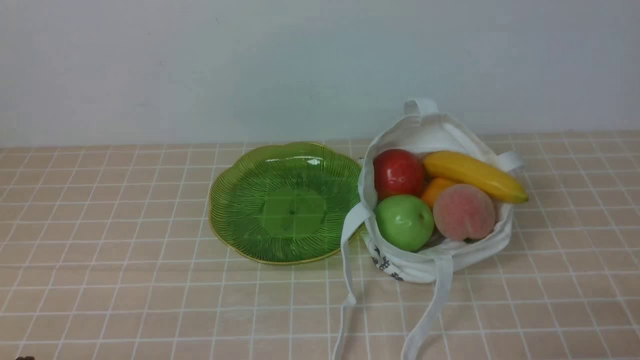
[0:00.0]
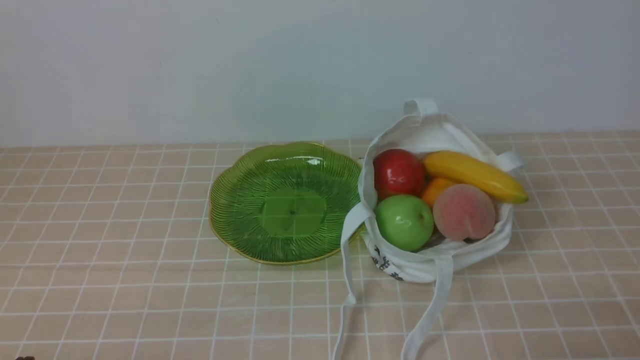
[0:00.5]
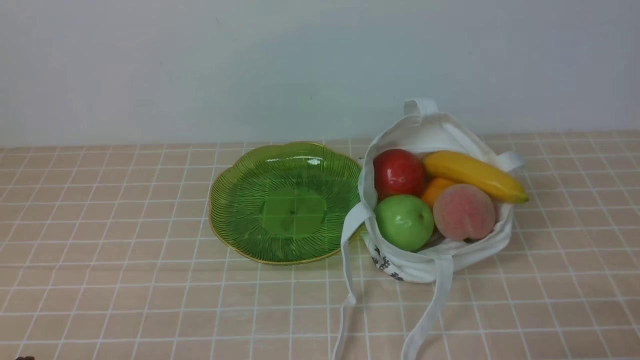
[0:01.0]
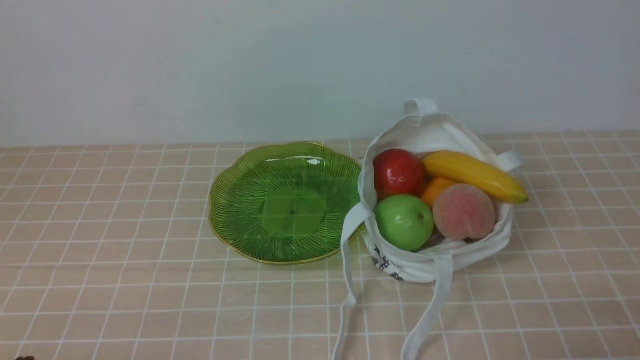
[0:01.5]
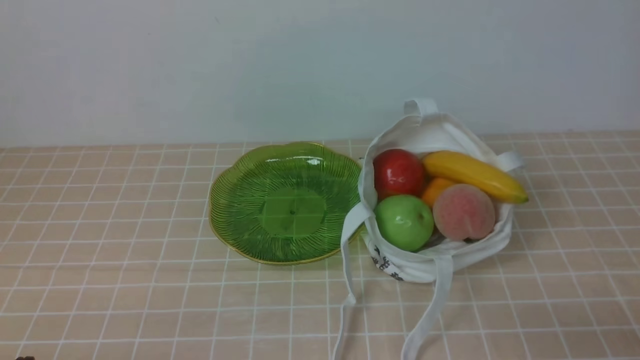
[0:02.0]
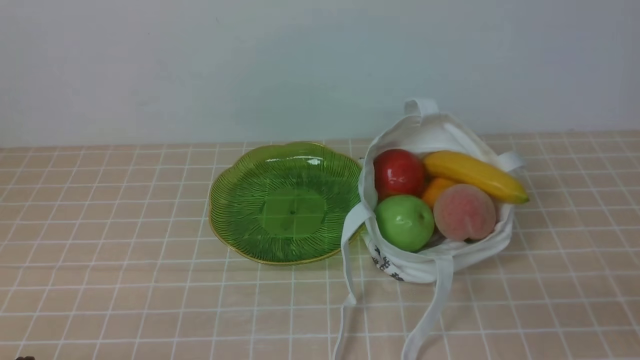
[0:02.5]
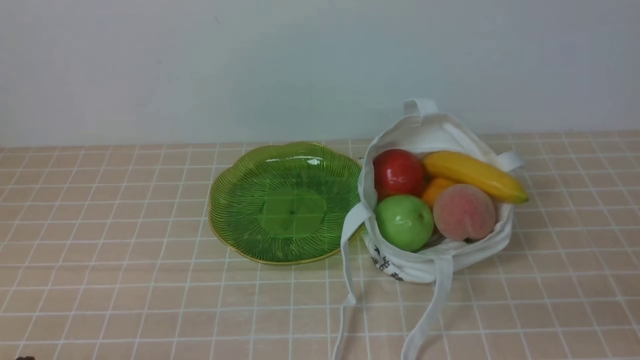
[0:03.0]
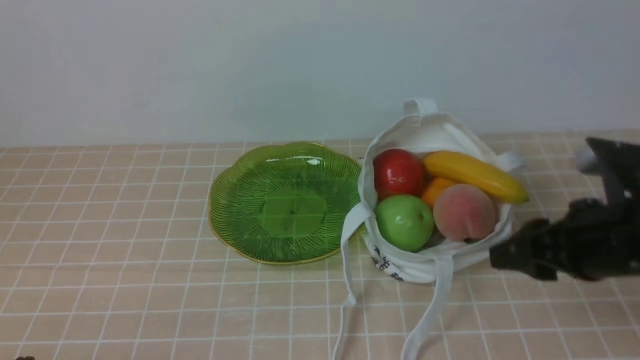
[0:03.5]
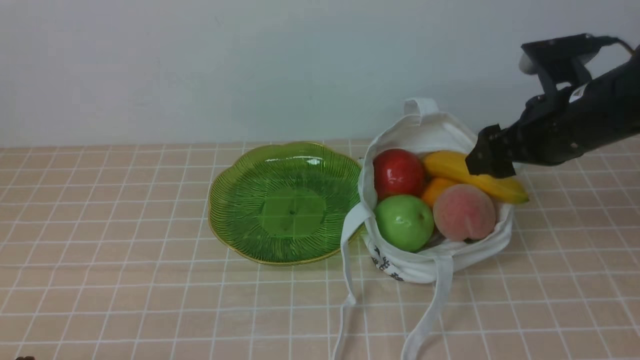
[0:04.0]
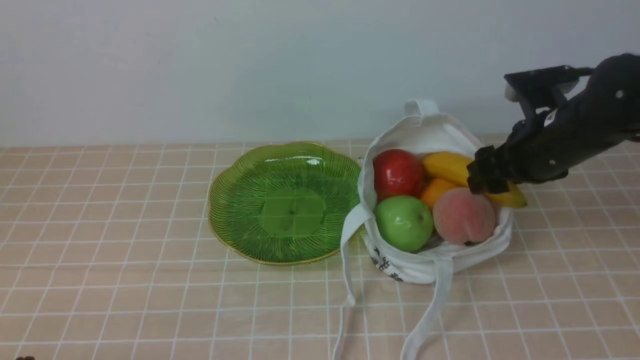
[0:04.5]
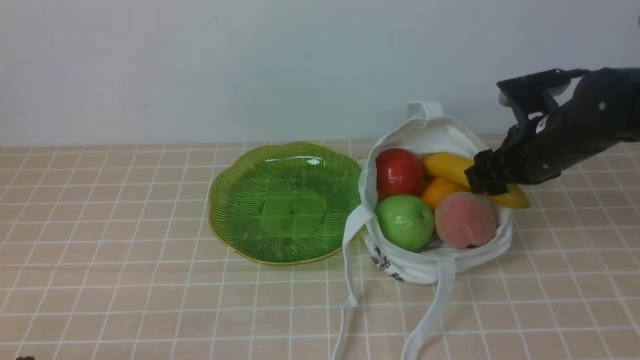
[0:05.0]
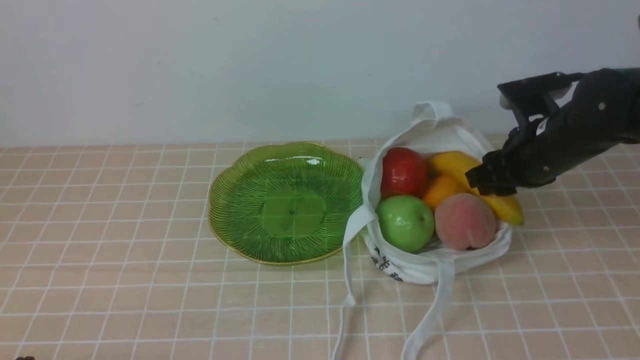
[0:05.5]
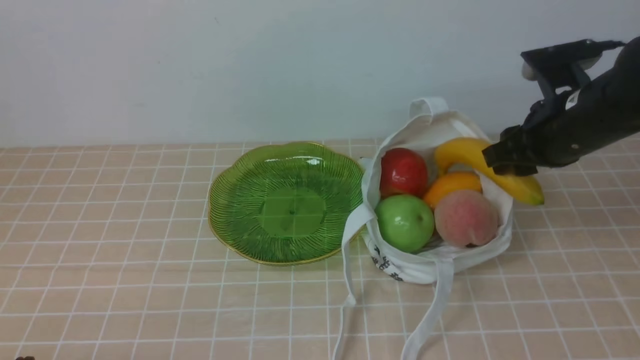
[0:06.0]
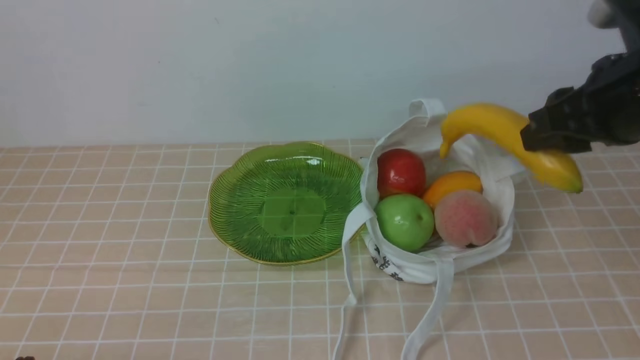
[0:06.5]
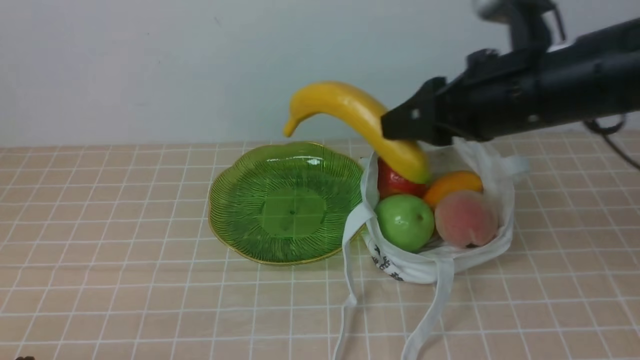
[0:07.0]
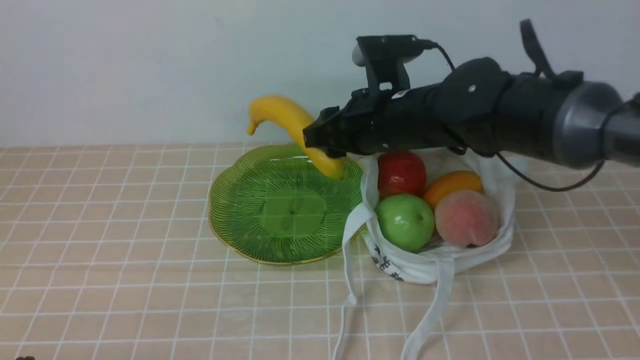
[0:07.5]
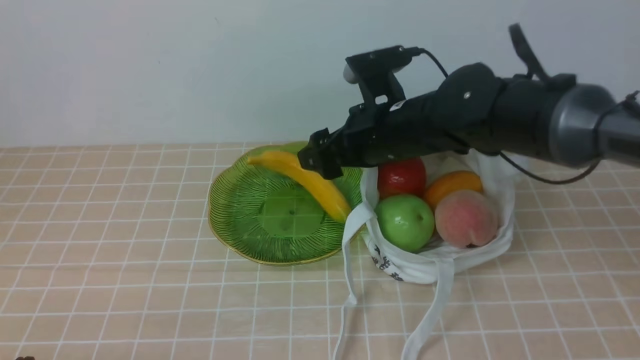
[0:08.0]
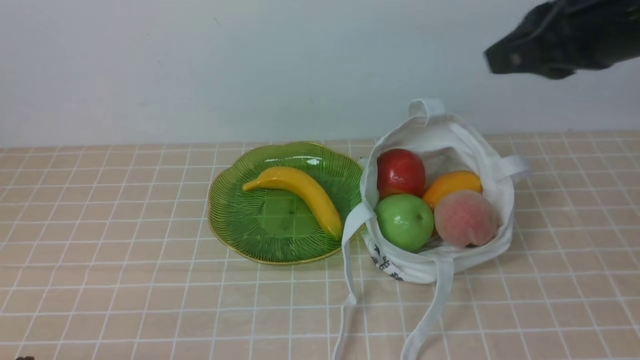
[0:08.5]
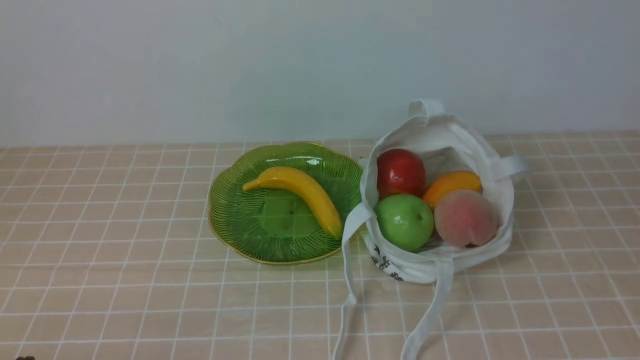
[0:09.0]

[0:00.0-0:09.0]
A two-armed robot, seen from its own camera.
Step, 0.0 to 6.0 s: use the right arm to grab a banana from the bag.
Step, 6.5 to 7.5 s: use the right arm to put the banana into the empty plate on the right.
2.0 to 4.5 s: The right gripper goes about 30 cm forward, and opens.
4.5 to 7.0 s: The right gripper goes some 15 cm upward, to the left and backward, and closes.
7.0 to 9.0 s: The right gripper heads backward, to the right and upward, covering roughly 25 cm, and closes.

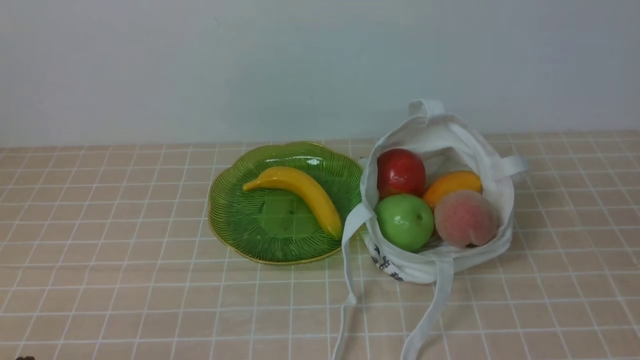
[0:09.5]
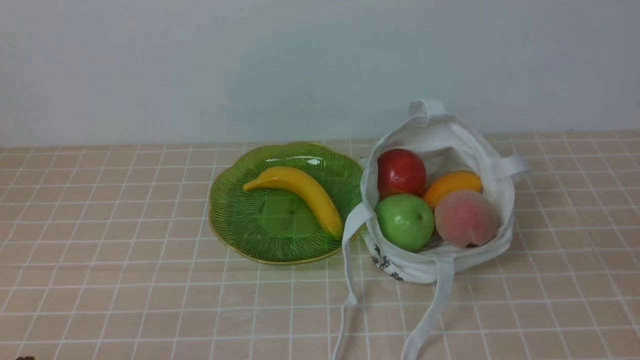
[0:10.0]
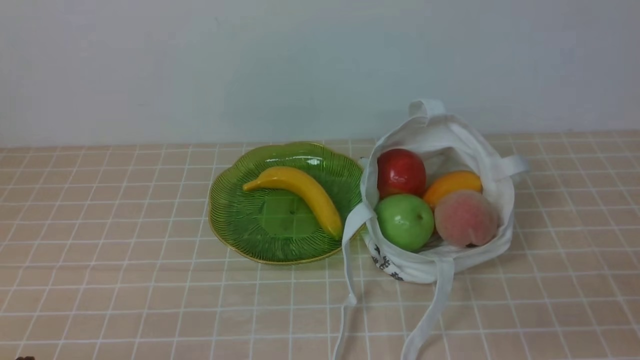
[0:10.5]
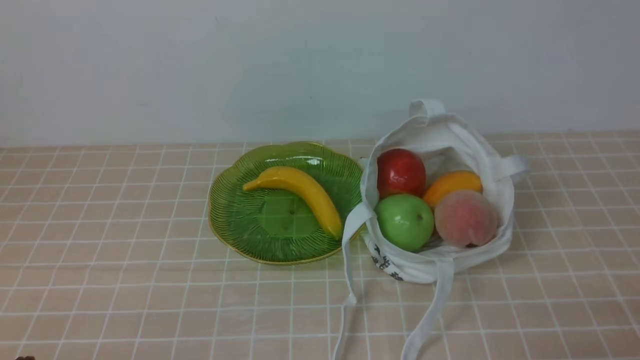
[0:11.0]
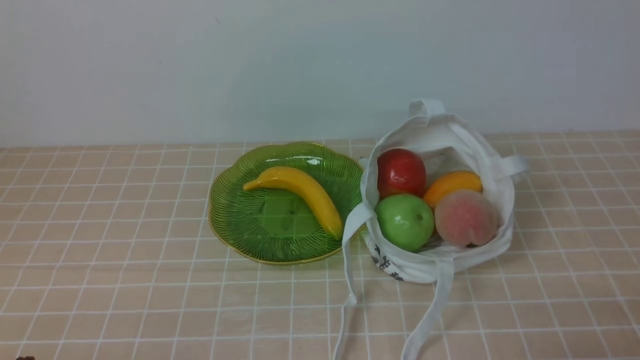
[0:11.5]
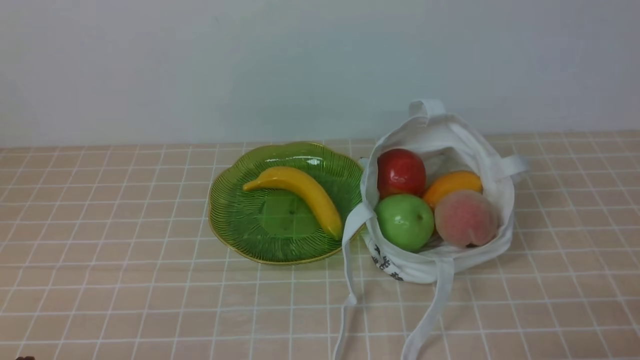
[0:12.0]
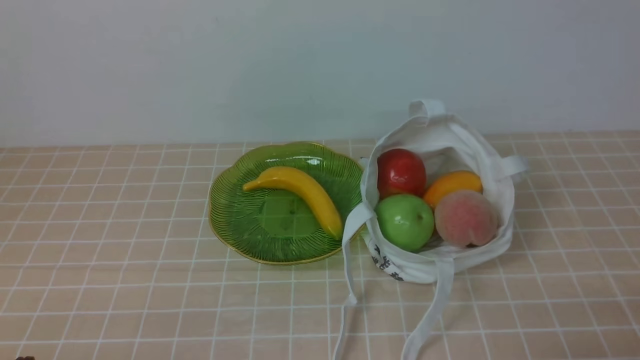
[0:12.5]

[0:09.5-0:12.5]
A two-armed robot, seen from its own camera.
11.0 to 12.5 s: The two grippers keep their place.

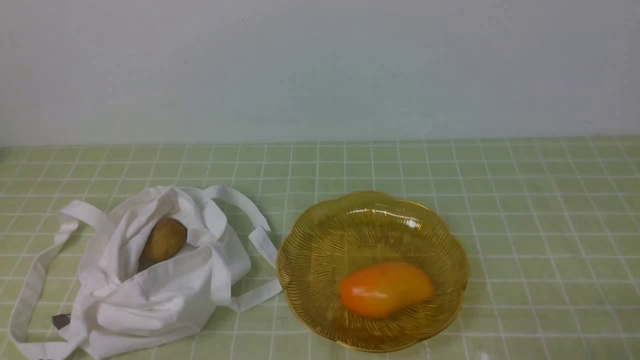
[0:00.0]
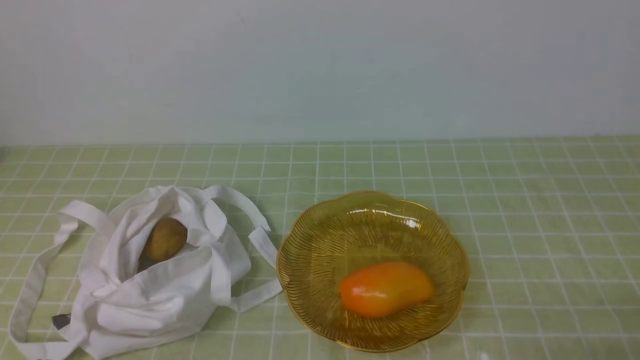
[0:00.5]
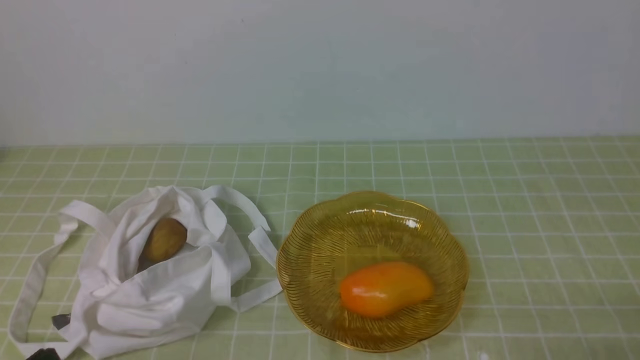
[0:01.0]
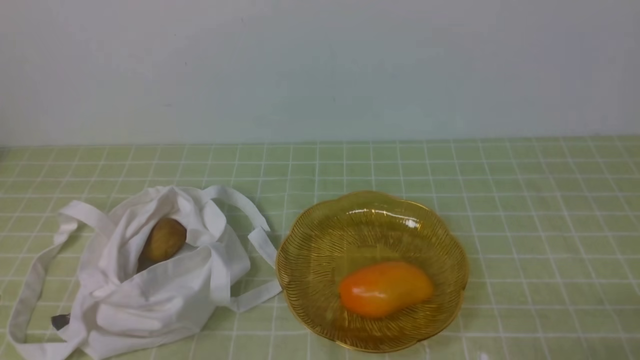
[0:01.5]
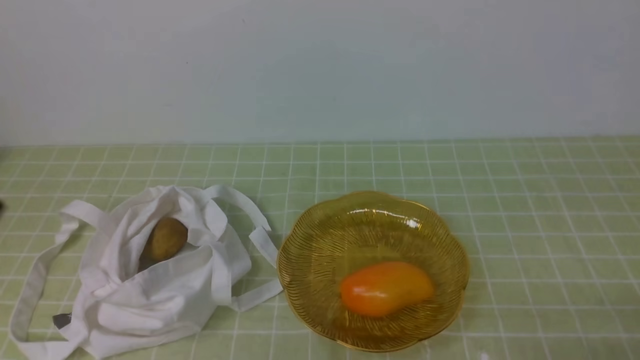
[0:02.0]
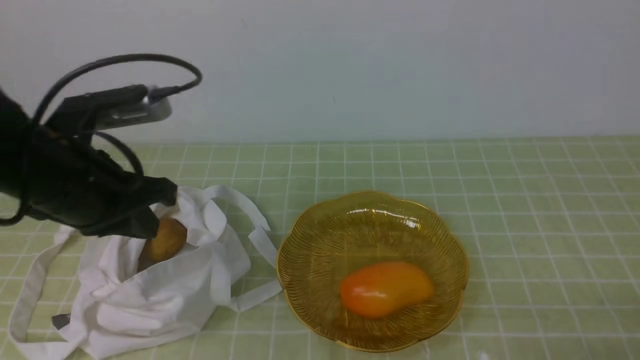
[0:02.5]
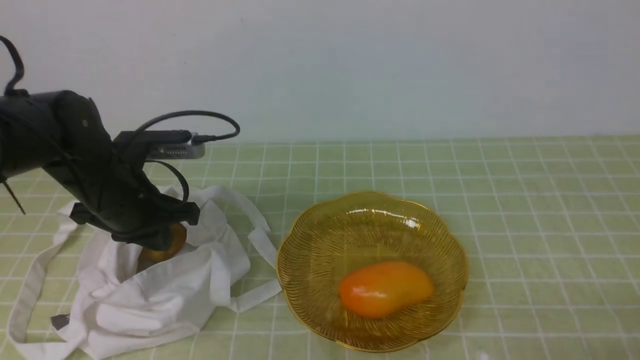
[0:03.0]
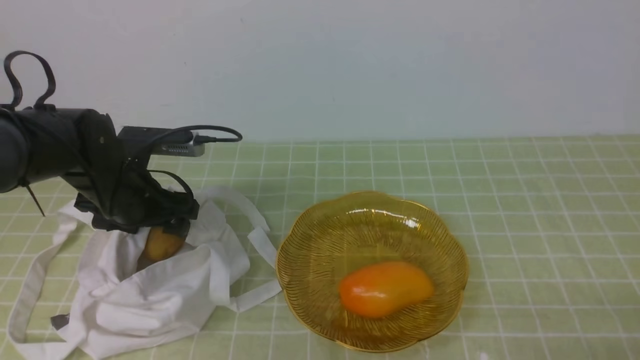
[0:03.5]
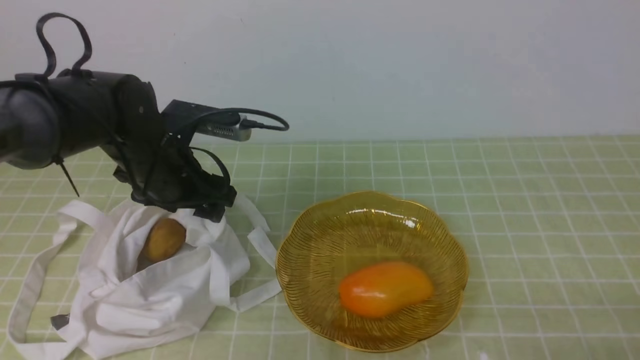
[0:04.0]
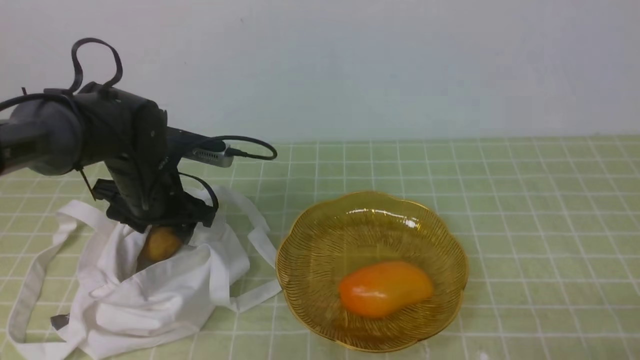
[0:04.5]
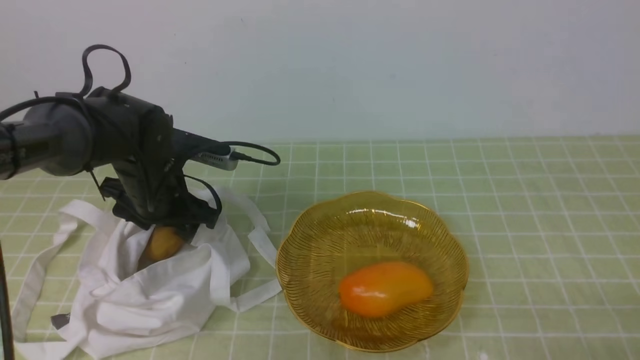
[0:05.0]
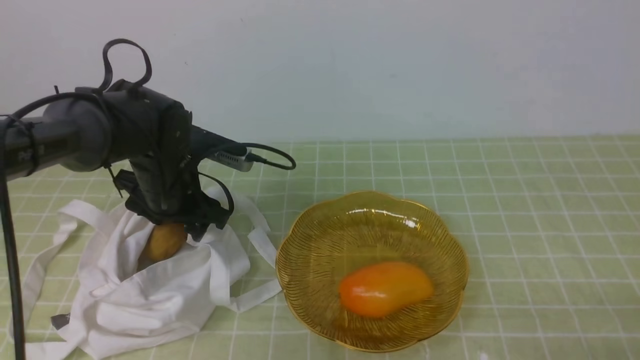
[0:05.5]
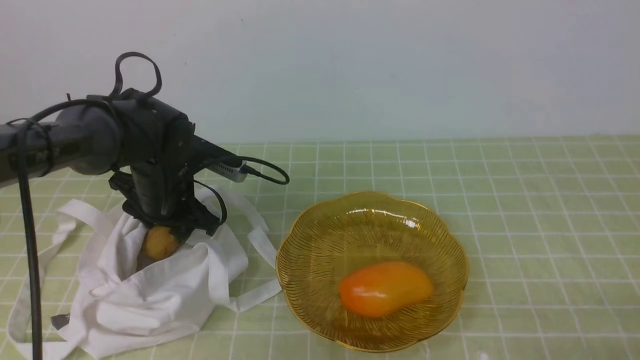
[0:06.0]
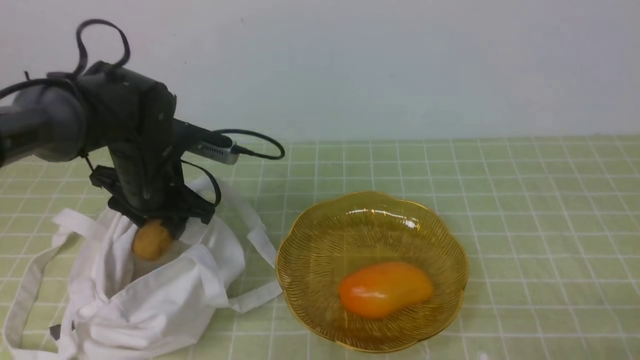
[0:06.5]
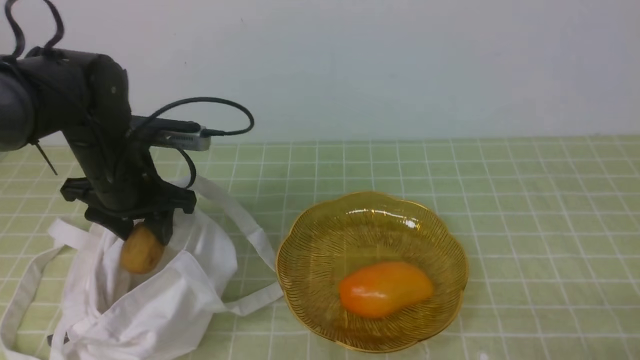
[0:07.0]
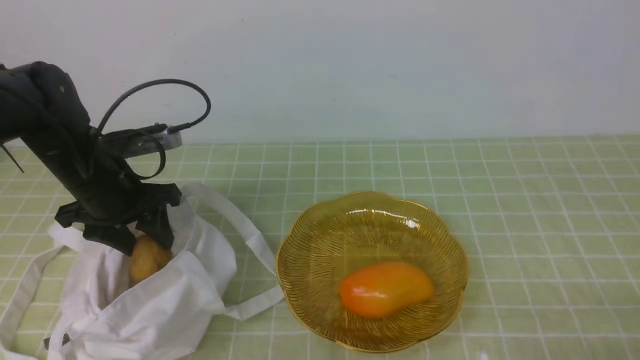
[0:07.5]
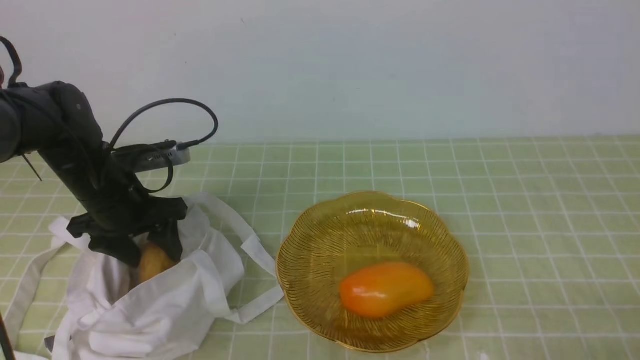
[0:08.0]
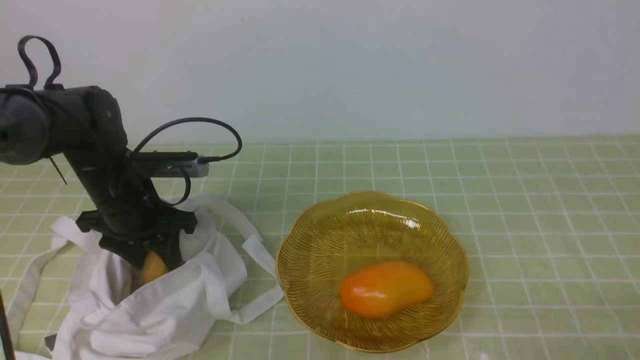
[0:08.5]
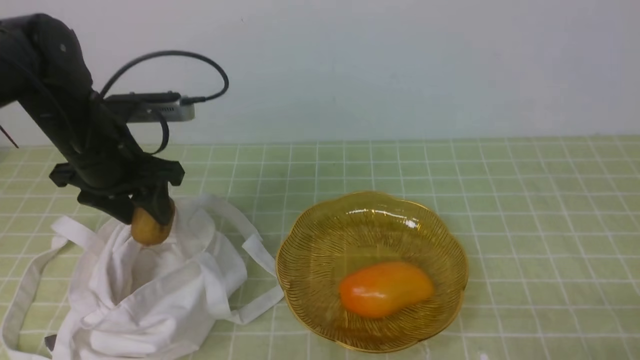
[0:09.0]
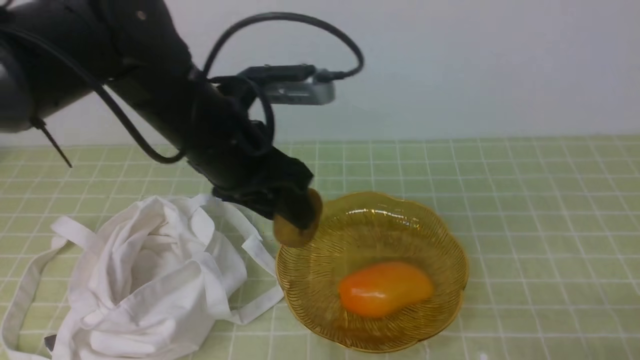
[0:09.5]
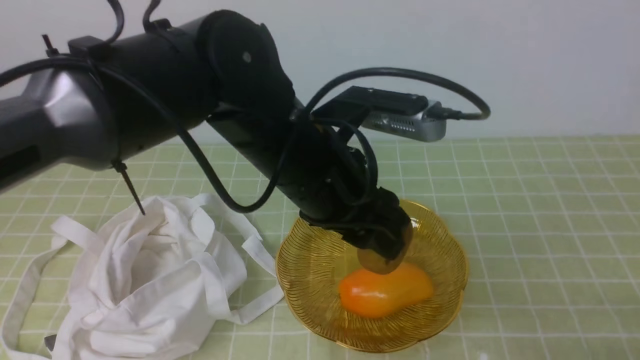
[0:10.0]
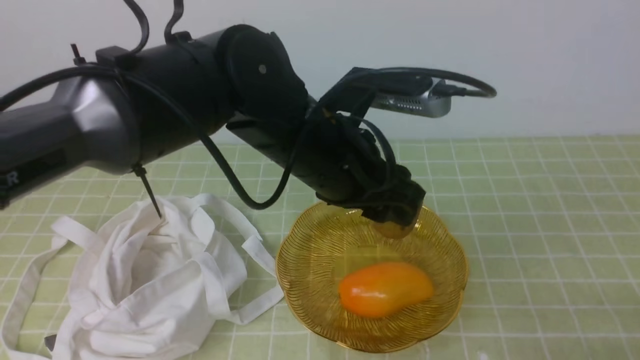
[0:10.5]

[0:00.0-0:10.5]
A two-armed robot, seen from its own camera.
Step, 0.0 to 8.5 s: use the left arm to grab a kiwi from the bag.
2.0 to 4.0 s: The left gripper heads forward and downward, covering about 30 cm, and opens its fingers.
4.0 to 6.5 s: The grippers make only small movements.
6.5 to 8.5 s: The left gripper moves approximately 5 cm.
8.5 to 10.5 s: The left gripper goes approximately 25 cm to the right and upward.
